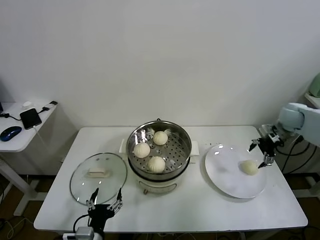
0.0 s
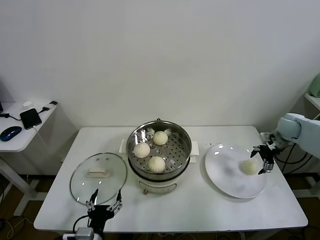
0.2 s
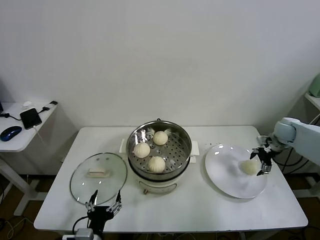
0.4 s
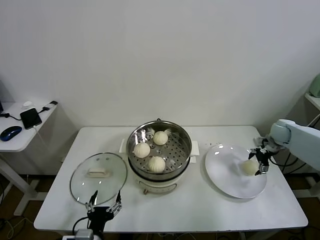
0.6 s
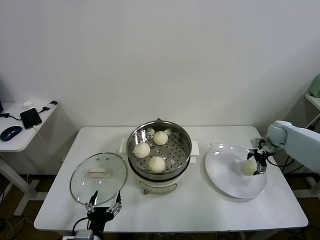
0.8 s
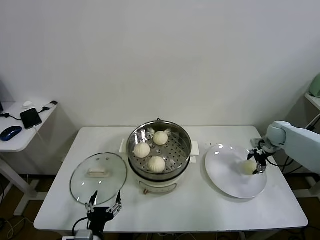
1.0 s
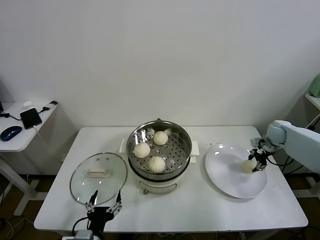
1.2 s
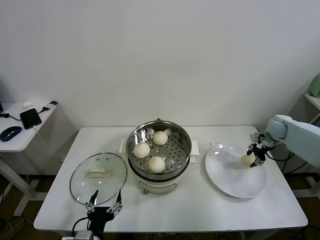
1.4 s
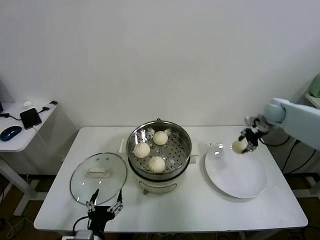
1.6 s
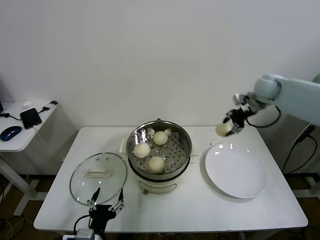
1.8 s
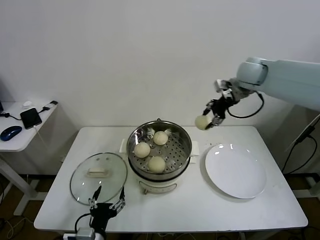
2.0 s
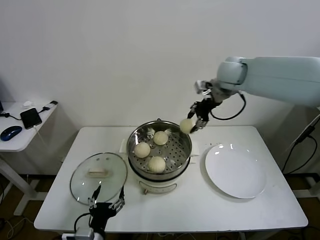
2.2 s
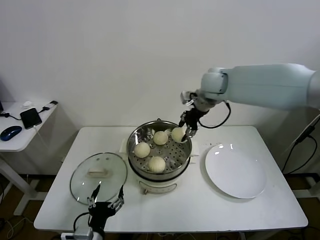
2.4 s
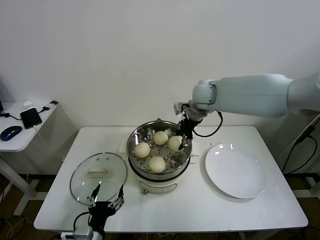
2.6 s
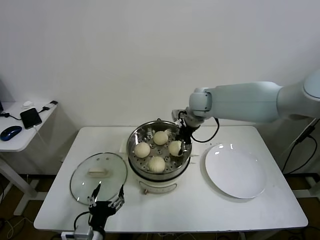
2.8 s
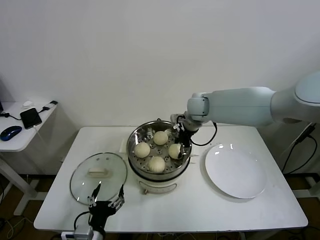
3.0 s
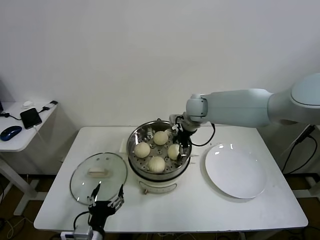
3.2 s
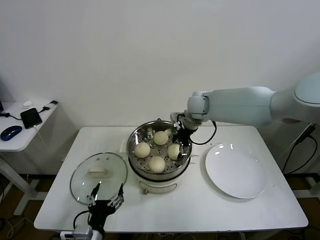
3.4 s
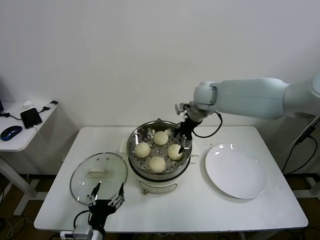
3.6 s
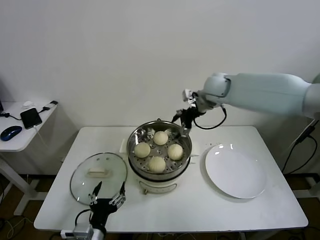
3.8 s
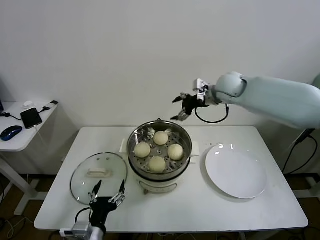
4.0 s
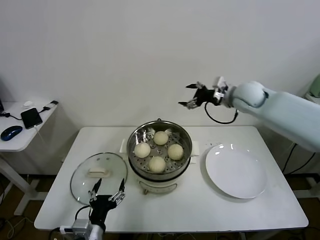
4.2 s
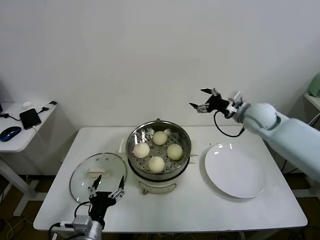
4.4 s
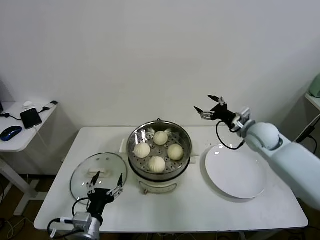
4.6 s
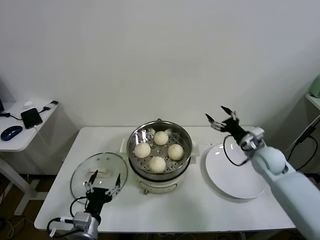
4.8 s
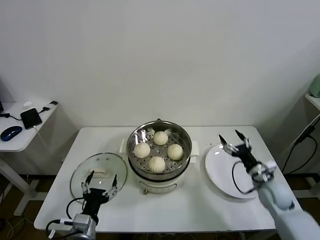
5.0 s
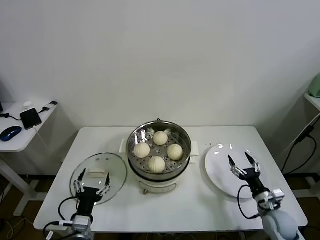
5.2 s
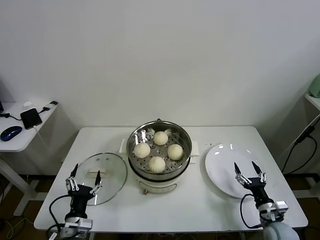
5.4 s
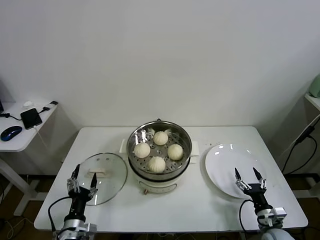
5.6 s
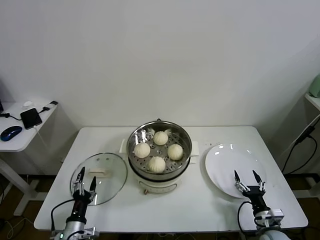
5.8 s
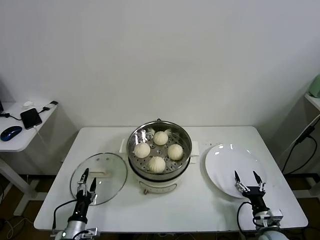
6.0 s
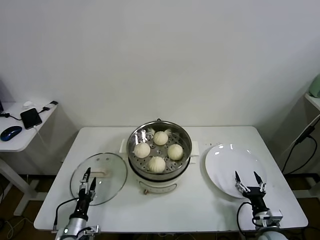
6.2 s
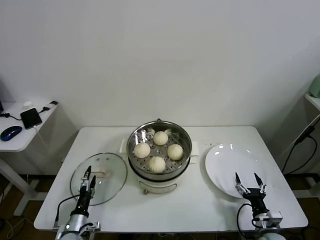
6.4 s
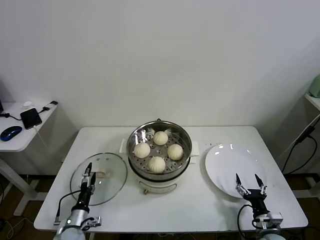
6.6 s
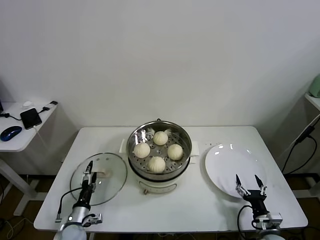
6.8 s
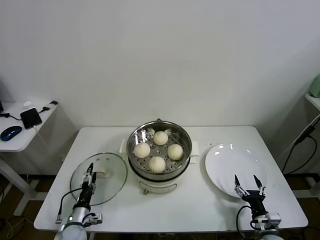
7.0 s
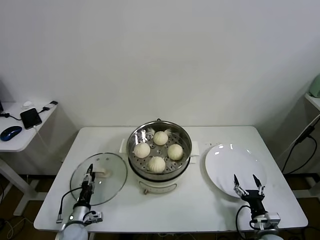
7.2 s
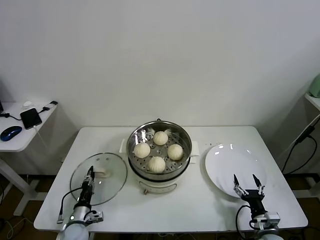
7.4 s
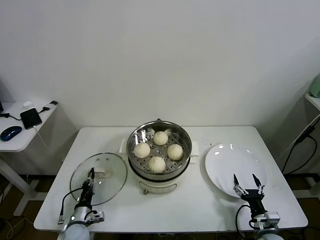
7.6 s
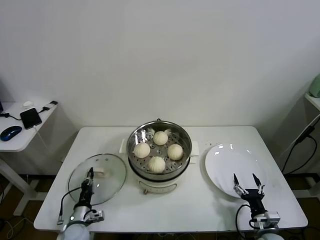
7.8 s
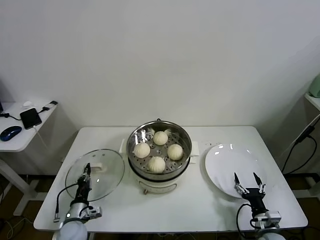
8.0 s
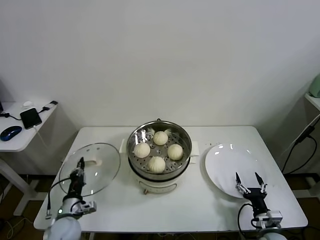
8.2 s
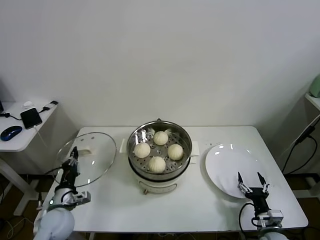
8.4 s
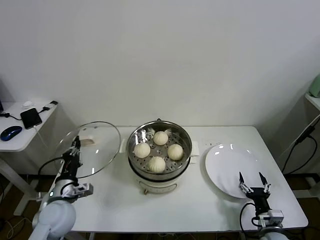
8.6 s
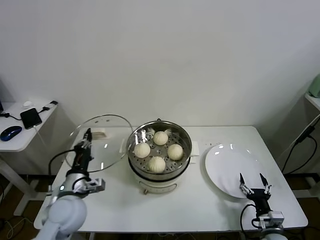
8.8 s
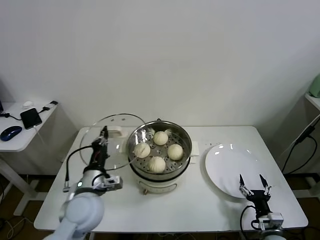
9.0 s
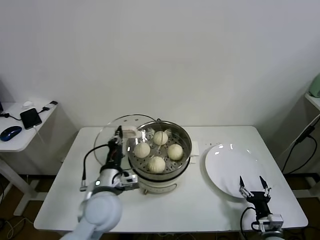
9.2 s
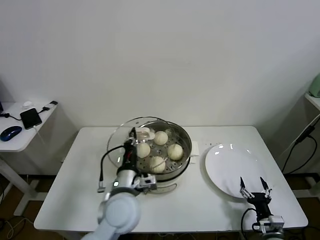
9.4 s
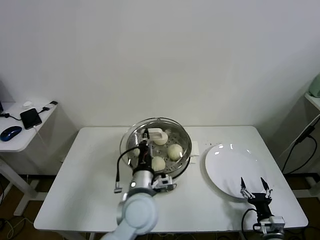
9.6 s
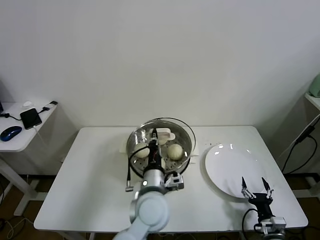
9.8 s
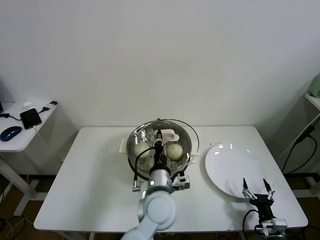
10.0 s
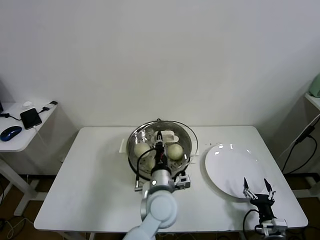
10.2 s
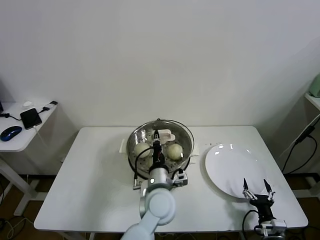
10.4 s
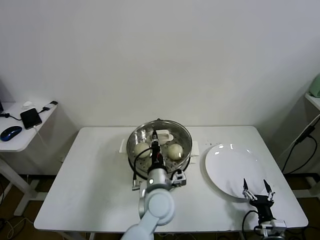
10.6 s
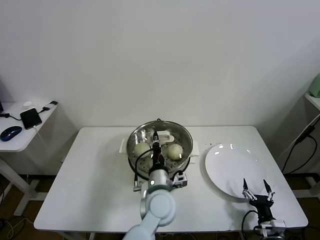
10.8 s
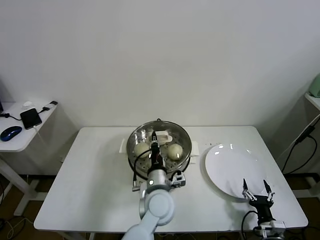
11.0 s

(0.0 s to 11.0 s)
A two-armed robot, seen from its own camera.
Task of the whole recording: take steamed baozi put them in steamer.
Step, 1.4 s - 3.4 s: Place the baozi on the steamer with right gripper.
Step, 3.6 s - 7.6 s: Grasp the pot lid with left gripper.
0.0 s - 1.6 s: The right gripper travels to the left by approximately 5 cm, reaches approximately 10 cm downward, then returns, and closes its fingers.
1.6 s - 3.2 s: The right gripper moves to the left, approximately 30 cm, and opens.
3.2 s - 4.8 s: The right gripper travels to the right, backward and downward by some 30 cm.
4.8 s - 6.2 s: The left gripper is displaced downward and to the left by roughly 15 cm. Meanwhile the right gripper shifts some 25 cm backward and downward.
6.2 s - 7.8 s: The left gripper closes up.
7.8 s - 9.4 s: The left gripper goes roughly 30 cm upward and to the right.
9.4 s - 11.0 s: The left gripper goes some 10 cm to the right and downward.

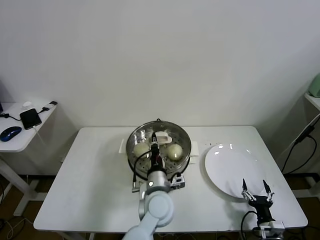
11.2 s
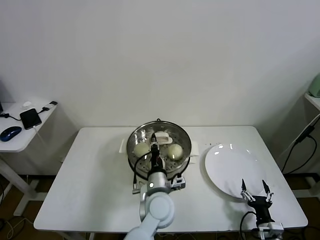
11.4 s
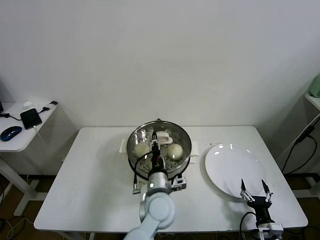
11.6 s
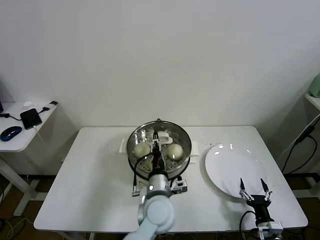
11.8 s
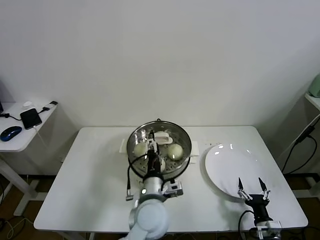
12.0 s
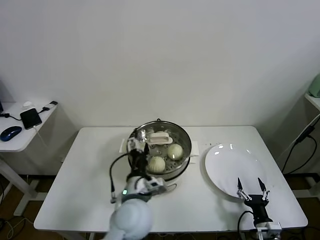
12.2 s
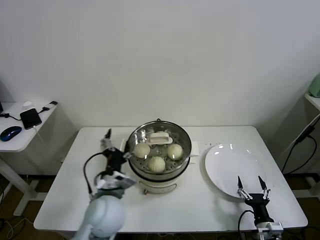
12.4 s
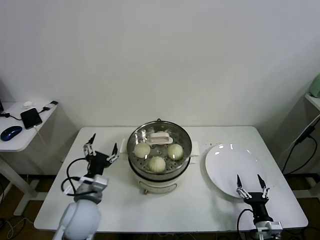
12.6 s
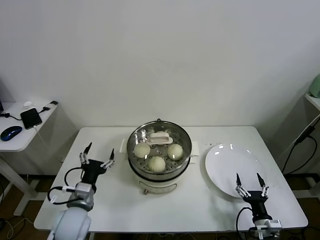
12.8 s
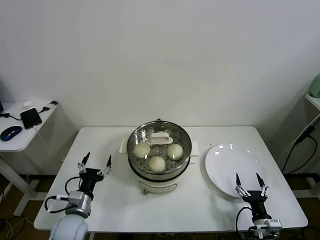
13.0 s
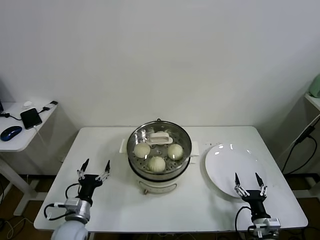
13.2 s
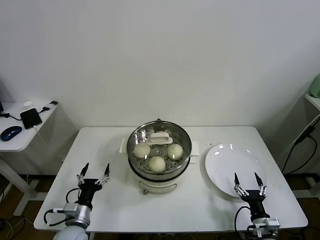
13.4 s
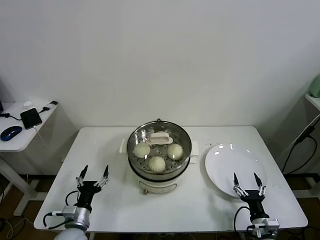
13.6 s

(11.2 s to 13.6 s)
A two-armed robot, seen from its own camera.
Task of the whole recording: take steamed baozi put them in steamer.
11.2 s - 12.4 s: The left gripper is displaced to the left and upward by roughly 10 cm, and opens.
12.4 s - 13.6 s: The left gripper moves to the left and downward, approximately 25 cm.

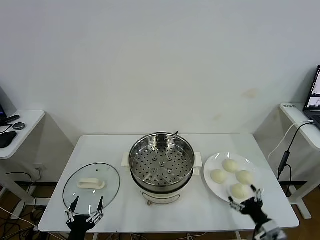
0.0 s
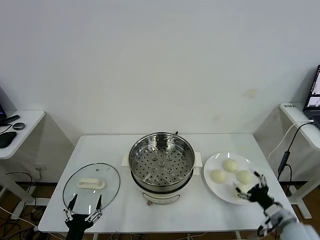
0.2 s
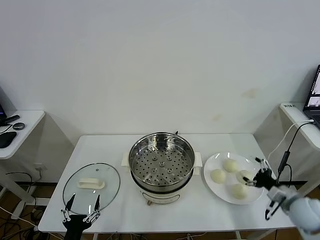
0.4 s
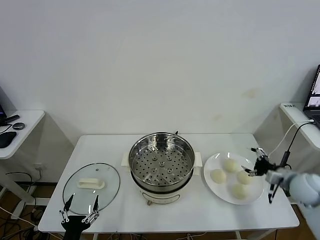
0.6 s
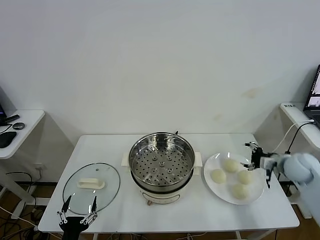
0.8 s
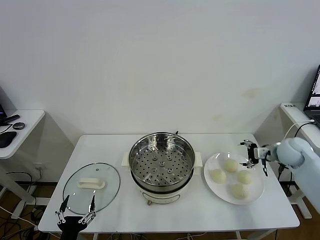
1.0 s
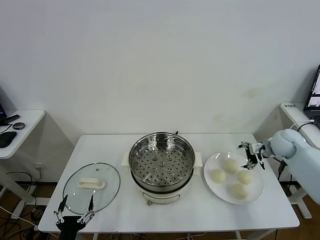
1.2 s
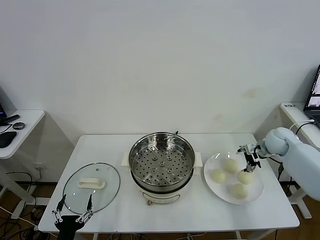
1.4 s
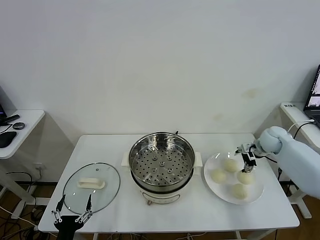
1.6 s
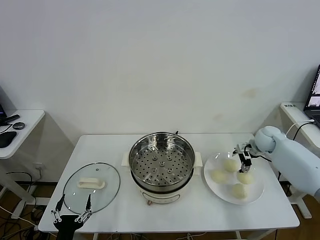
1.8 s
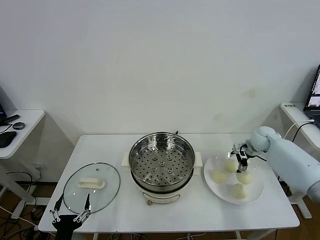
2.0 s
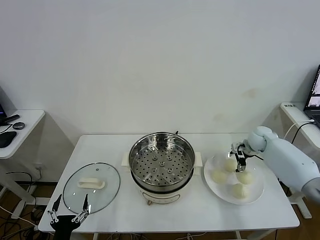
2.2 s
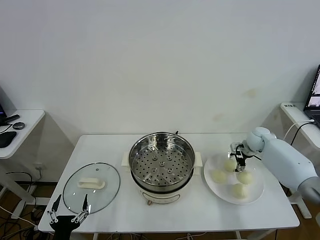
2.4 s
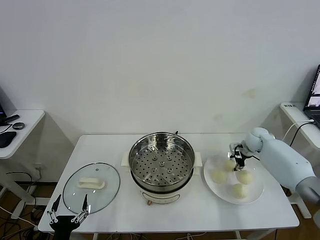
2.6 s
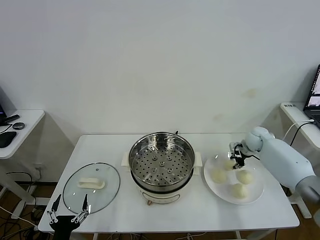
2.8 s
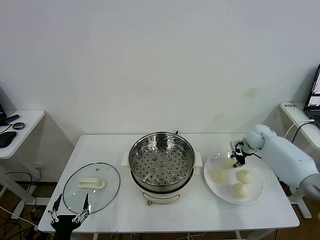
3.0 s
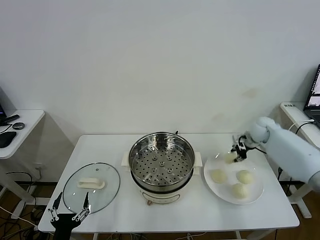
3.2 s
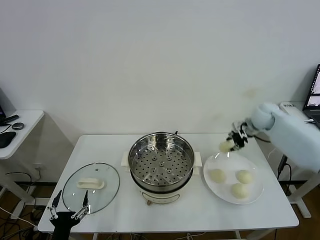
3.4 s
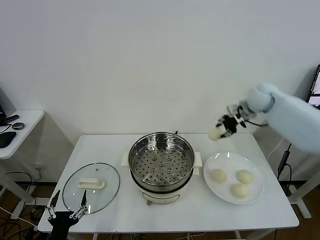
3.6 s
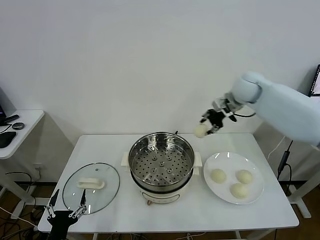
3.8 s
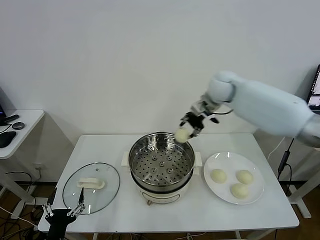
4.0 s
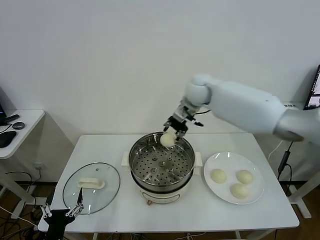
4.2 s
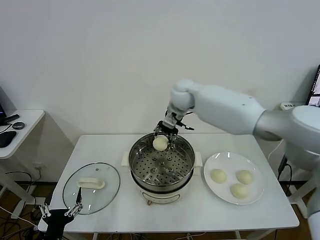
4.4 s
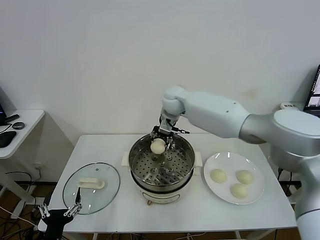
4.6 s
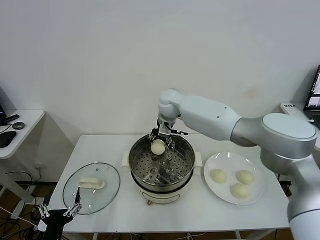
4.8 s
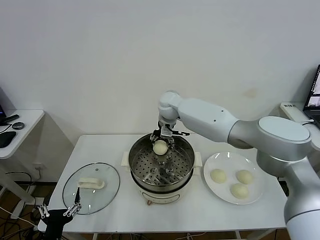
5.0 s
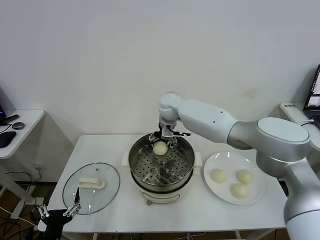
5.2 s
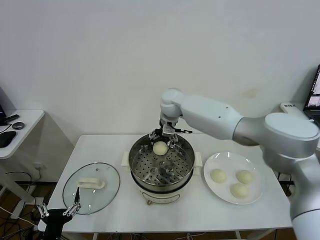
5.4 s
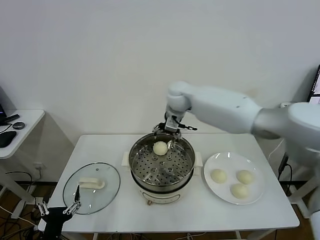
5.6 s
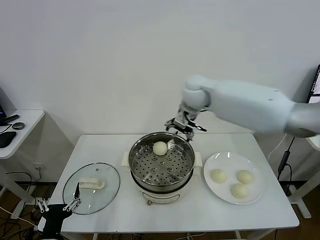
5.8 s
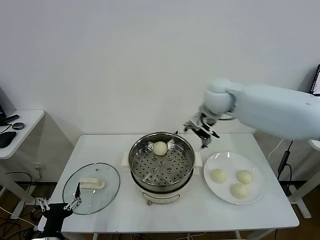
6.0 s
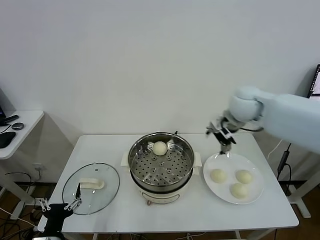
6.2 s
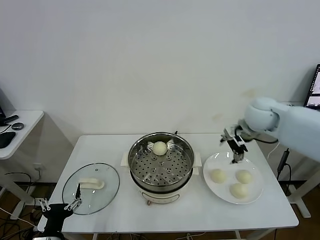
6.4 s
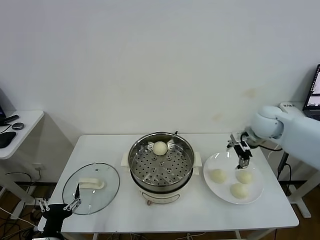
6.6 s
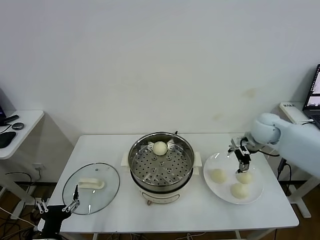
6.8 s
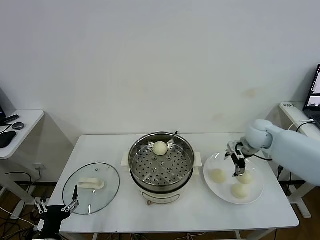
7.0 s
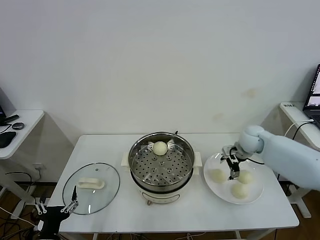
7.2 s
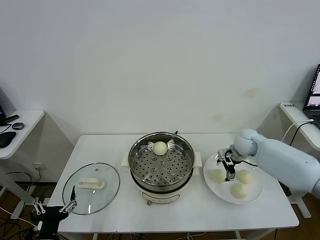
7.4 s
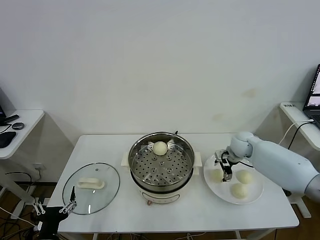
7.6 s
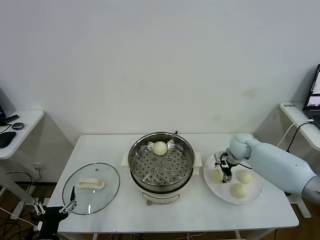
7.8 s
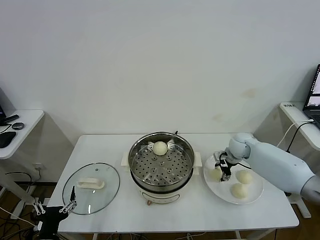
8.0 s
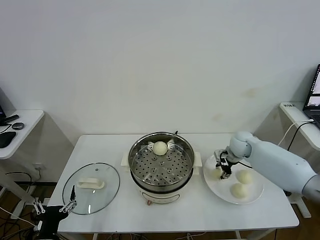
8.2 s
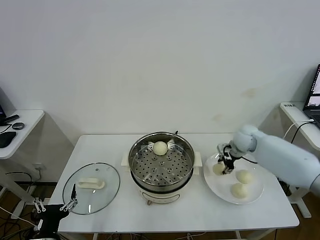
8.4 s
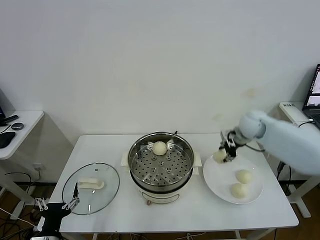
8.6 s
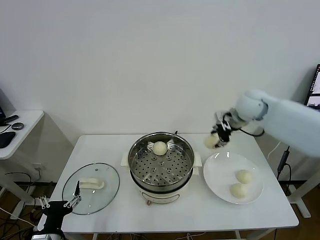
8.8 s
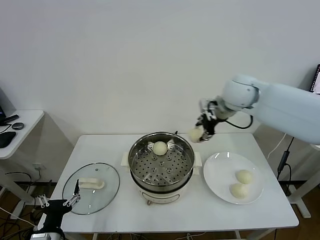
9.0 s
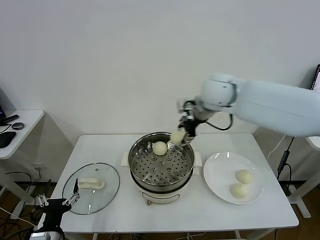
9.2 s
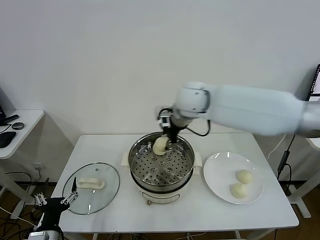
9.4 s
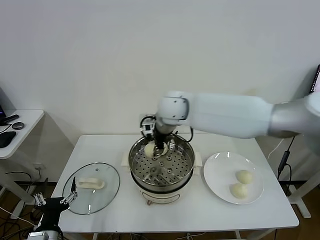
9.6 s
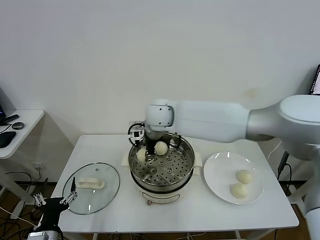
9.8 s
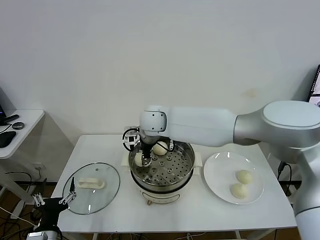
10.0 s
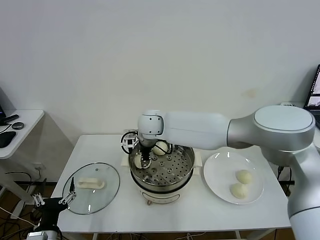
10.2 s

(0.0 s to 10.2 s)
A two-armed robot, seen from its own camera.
Task of the whole recording: take steamed baozi put them in steamer.
Step, 0.0 s - 2.8 s: Grasp the baozi in the plate with right gripper.
Step, 3.0 s - 5.4 s: Place the baozi on the steamer with right gripper.
Step, 5.6 s - 8.0 s: Grasp the baozi in the plate with right gripper.
1.4 s - 3.0 s: The right gripper goes roughly 5 cm forward, and closes.
3.0 s - 4.4 s: The right gripper shifts roughly 35 cm to the left and upward.
4.4 s - 5.8 s: The right gripper is displaced to the right by approximately 5 cm, and opens its fingers.
5.8 s - 7.2 s: The right gripper shifts approximately 30 cm to the right and downward.
7.2 s - 8.8 s: The right gripper shifts approximately 15 cm upward, and closes.
8.8 s - 10.2 s: The right gripper shifts roughly 30 cm to the left.
